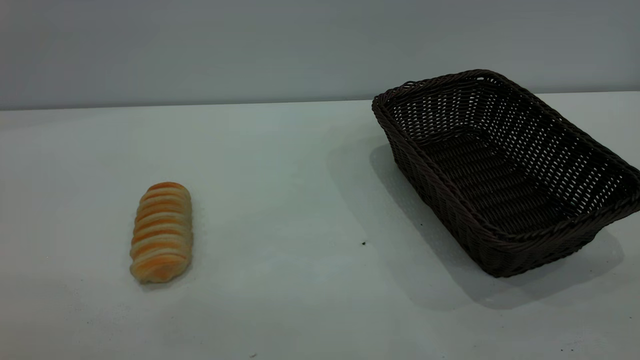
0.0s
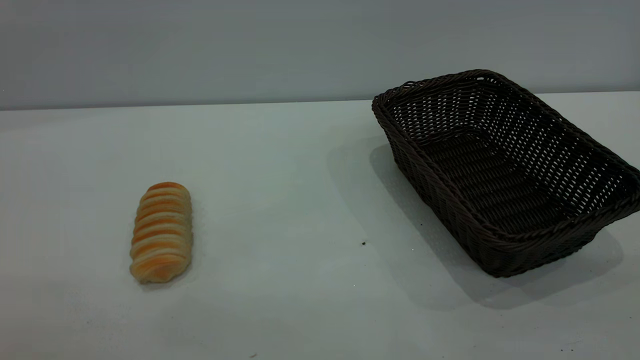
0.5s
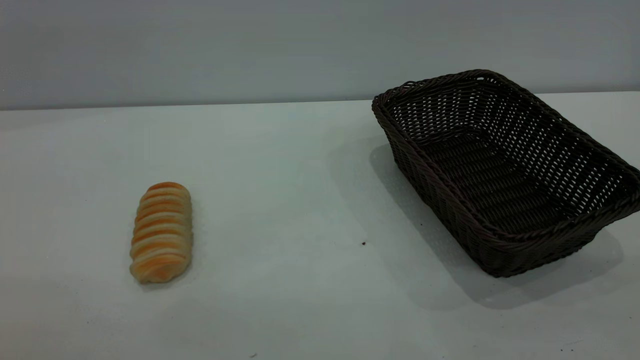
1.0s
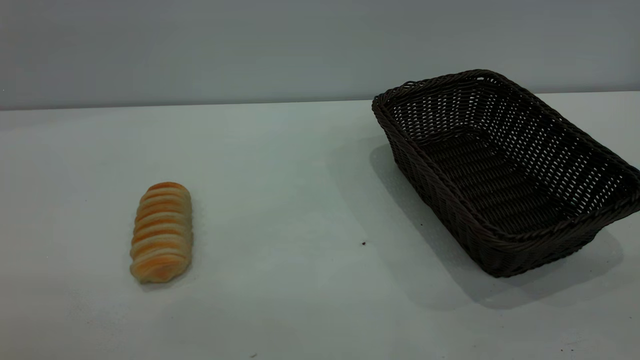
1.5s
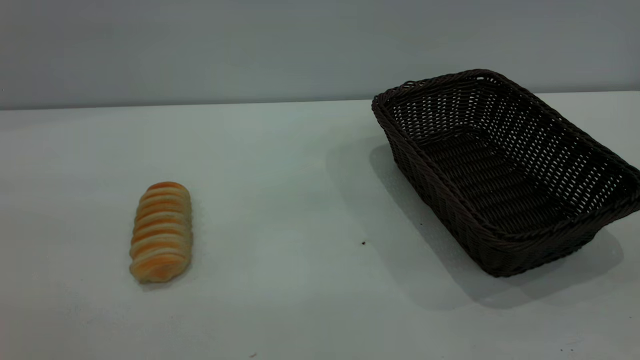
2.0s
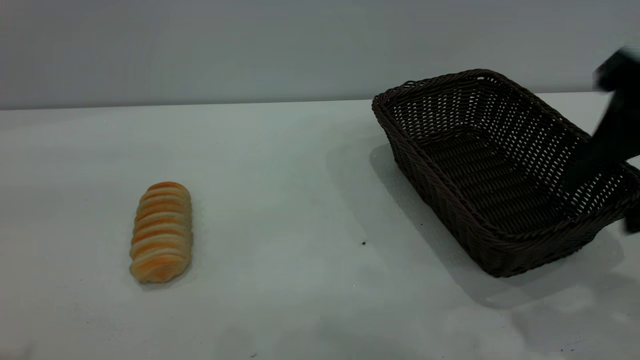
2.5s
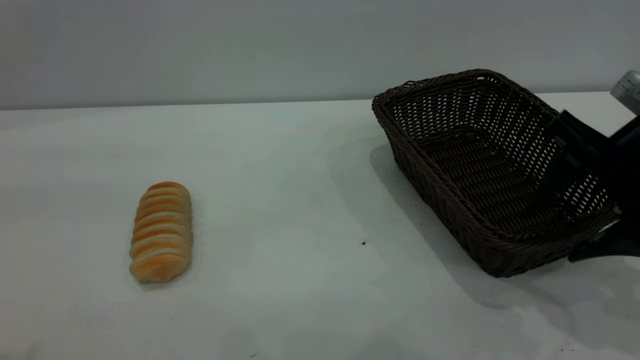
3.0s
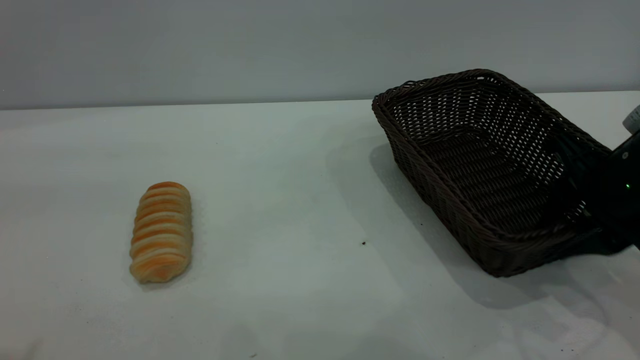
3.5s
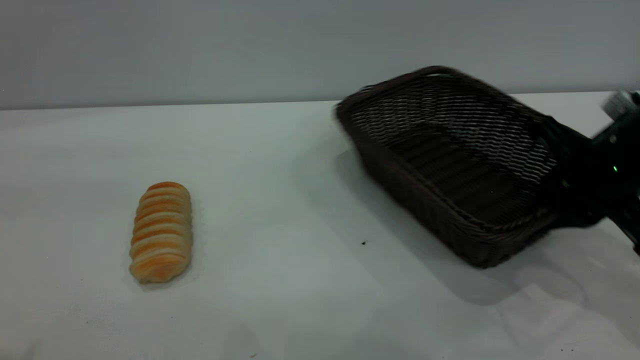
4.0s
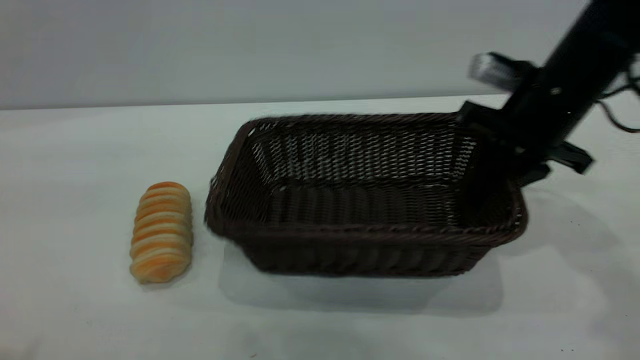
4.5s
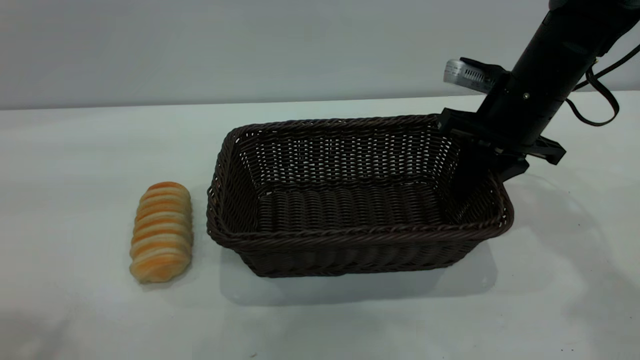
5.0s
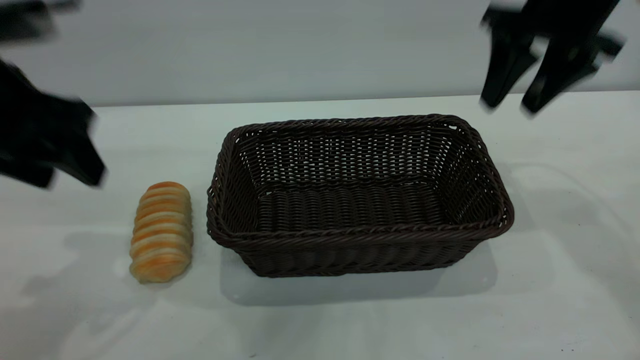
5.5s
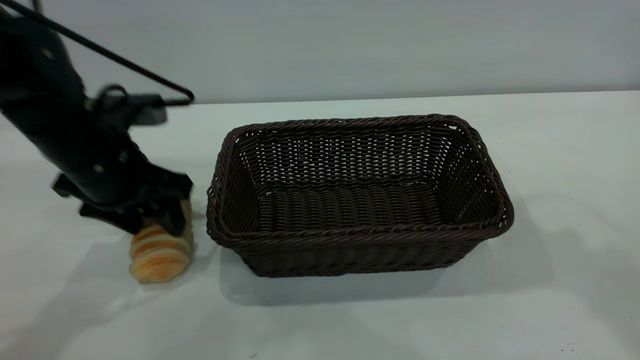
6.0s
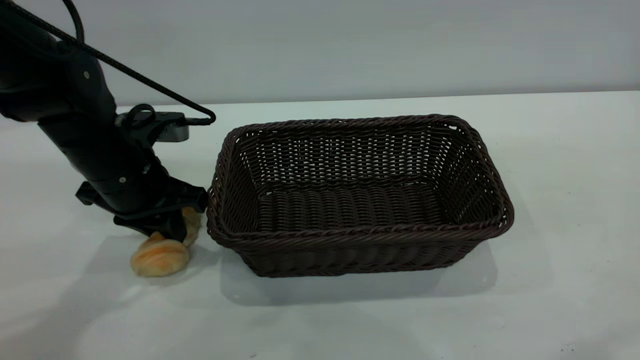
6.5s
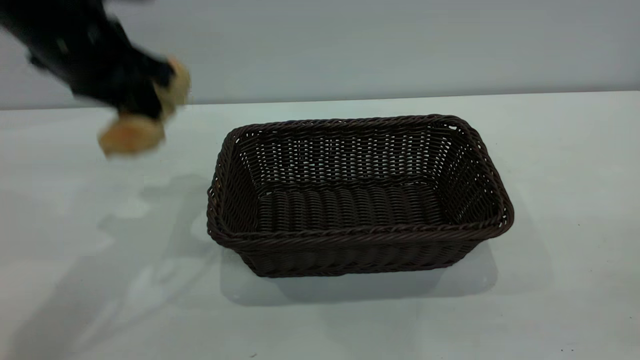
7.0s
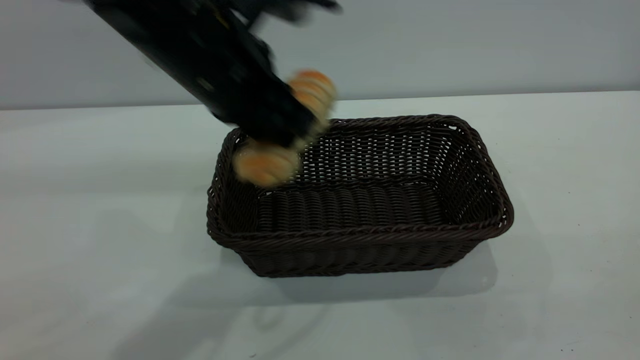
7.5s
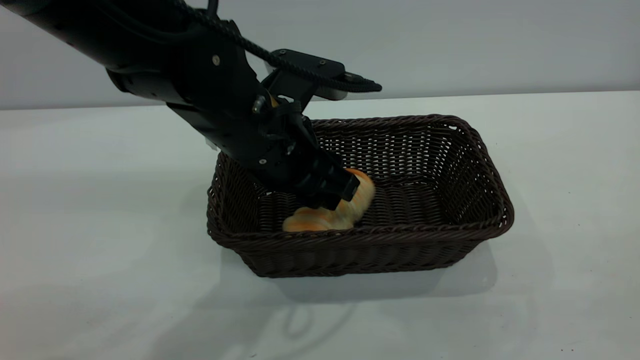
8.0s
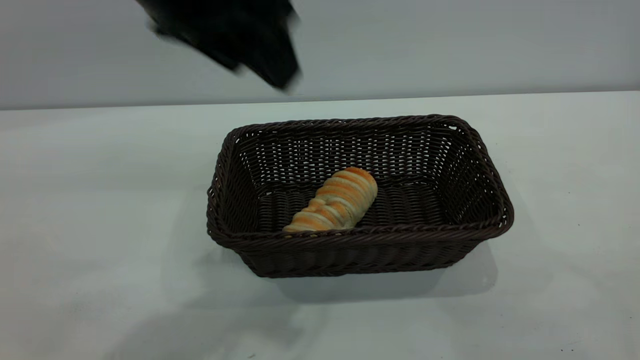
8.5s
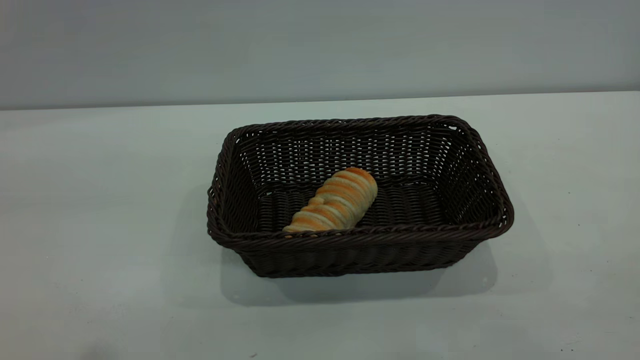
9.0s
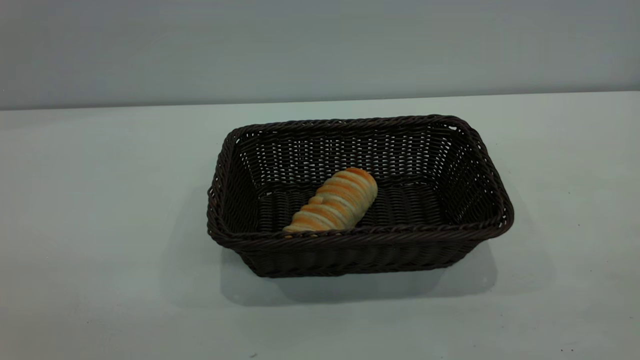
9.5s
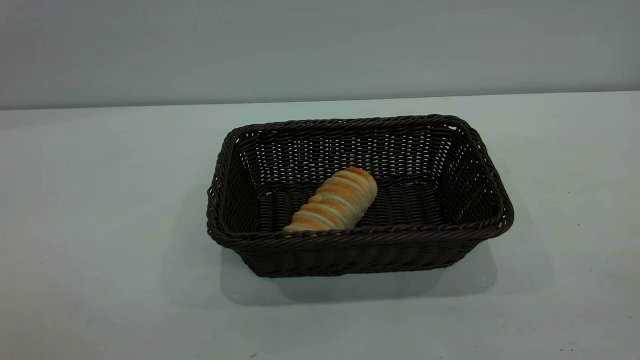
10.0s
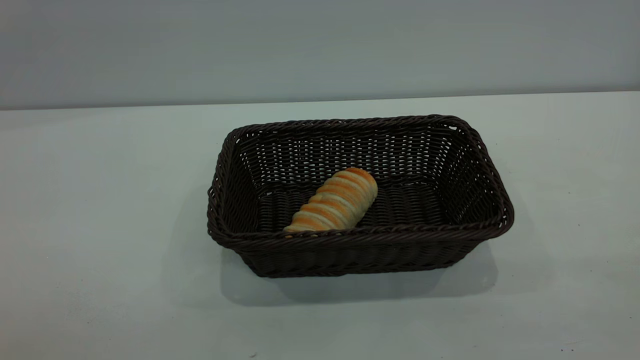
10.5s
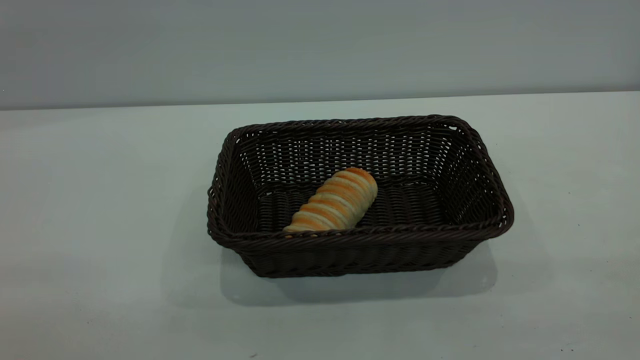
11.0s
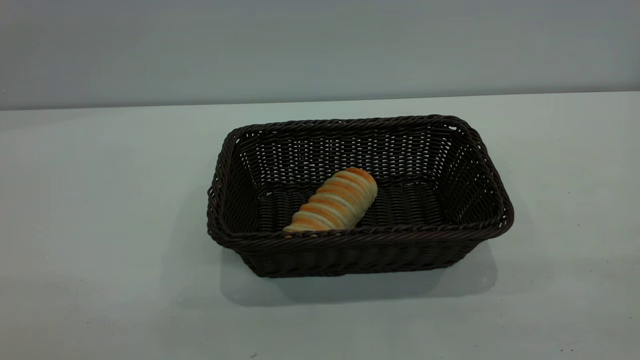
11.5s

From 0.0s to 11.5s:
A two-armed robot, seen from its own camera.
Task of the whole recording: One hand grasps the black basket and places it in the middle of the table, while the other hand picks up the long bread and puts it into the black basket.
Step, from 0.0s to 5.0s: Move the basket to the center of view.
Step, from 7.5s to 8.0s: place the bread into the basket.
From 2.0s to 4.0s: The left gripper heads forward, covering some 5 cm. Meanwhile the right gripper is displaced forward and downward by some 30 cm, and closes its fingers.
From 4.0s to 6.0s: The left gripper is displaced downward and forward by some 35 cm. The right gripper moves upward, approximately 30 cm, and opens up.
From 6.0s to 7.5s: The right gripper goes about 30 cm backward; the left gripper is displaced to the right and upward by approximately 15 cm, and closes.
From 7.5s to 9.5s: The left gripper shifts approximately 35 cm backward, to the left and upward, and opens.
